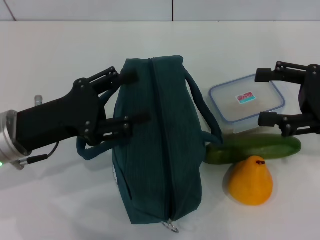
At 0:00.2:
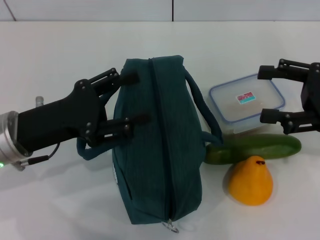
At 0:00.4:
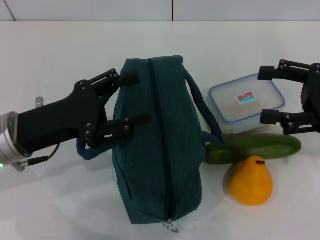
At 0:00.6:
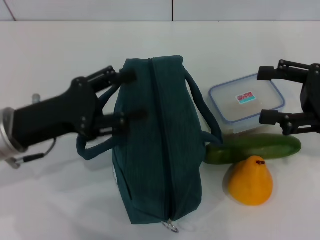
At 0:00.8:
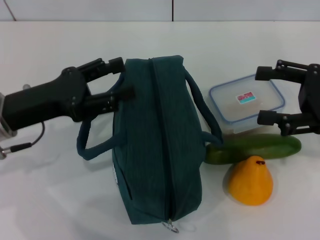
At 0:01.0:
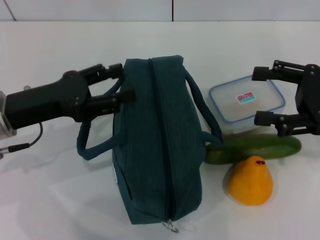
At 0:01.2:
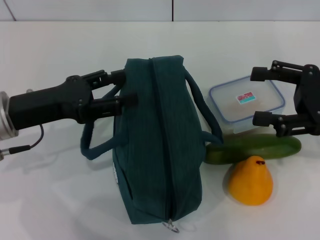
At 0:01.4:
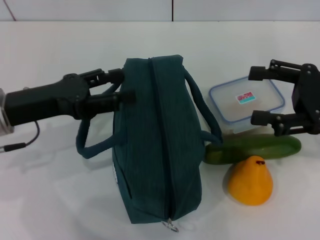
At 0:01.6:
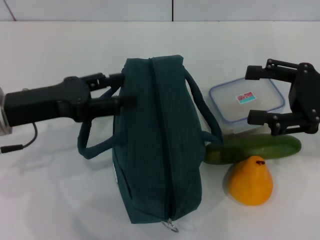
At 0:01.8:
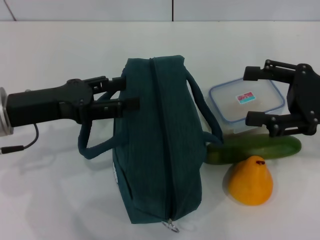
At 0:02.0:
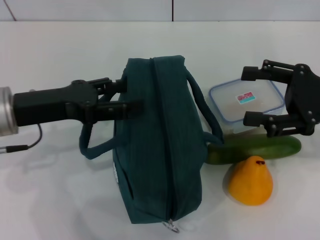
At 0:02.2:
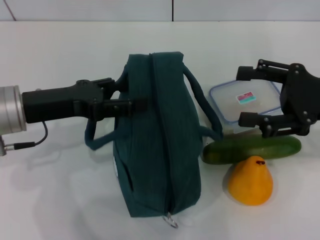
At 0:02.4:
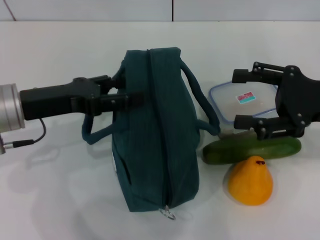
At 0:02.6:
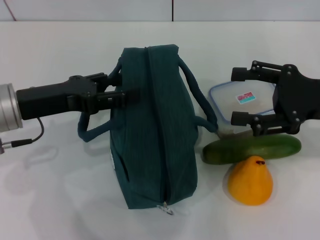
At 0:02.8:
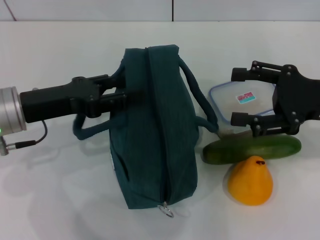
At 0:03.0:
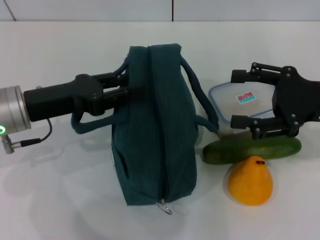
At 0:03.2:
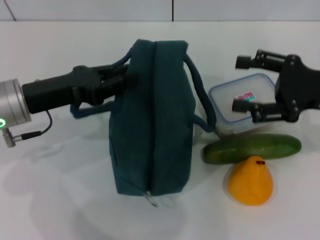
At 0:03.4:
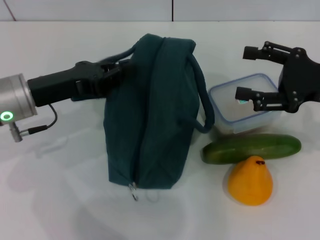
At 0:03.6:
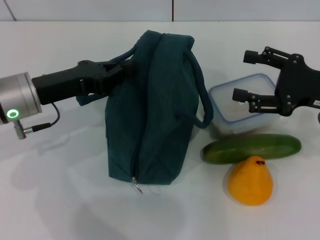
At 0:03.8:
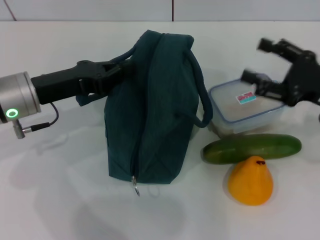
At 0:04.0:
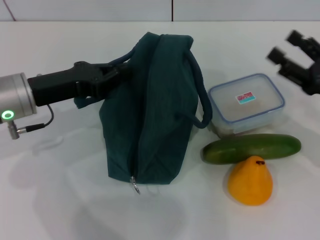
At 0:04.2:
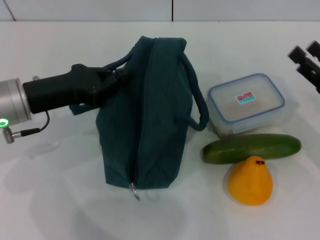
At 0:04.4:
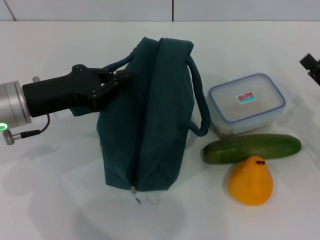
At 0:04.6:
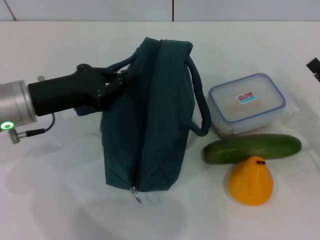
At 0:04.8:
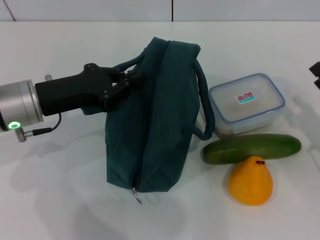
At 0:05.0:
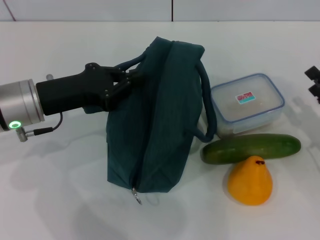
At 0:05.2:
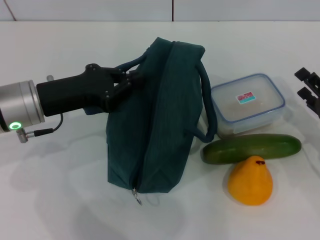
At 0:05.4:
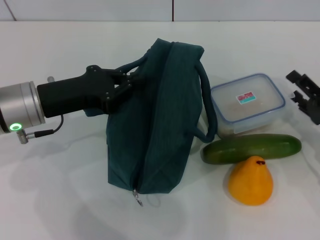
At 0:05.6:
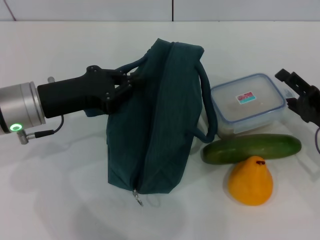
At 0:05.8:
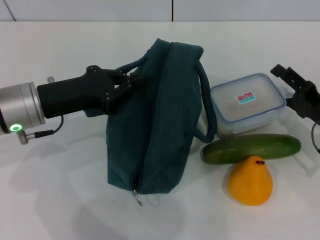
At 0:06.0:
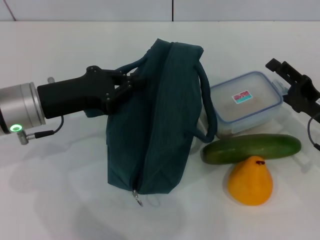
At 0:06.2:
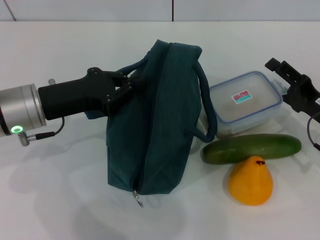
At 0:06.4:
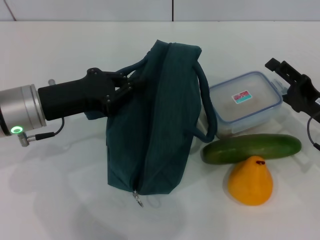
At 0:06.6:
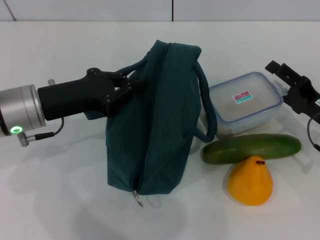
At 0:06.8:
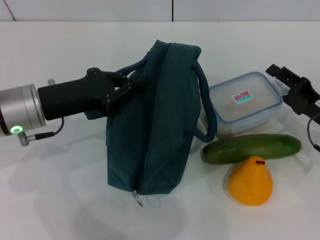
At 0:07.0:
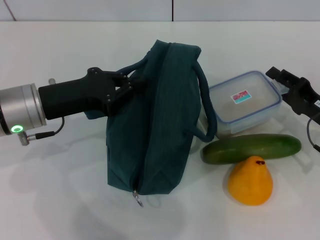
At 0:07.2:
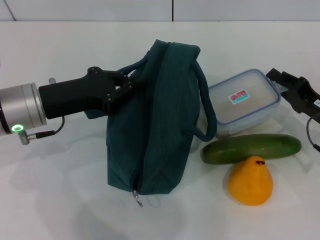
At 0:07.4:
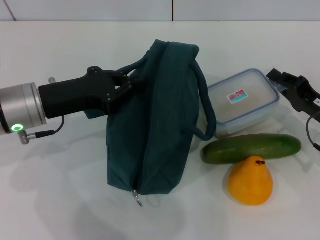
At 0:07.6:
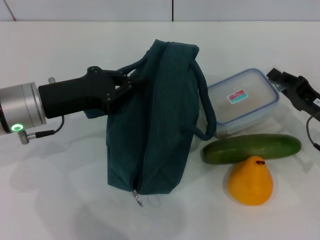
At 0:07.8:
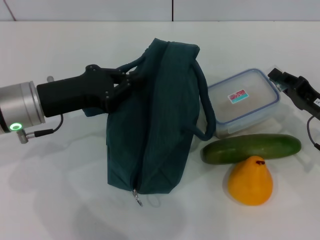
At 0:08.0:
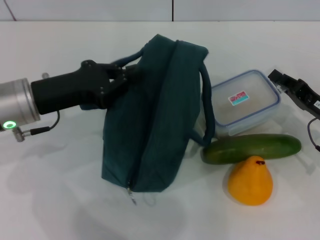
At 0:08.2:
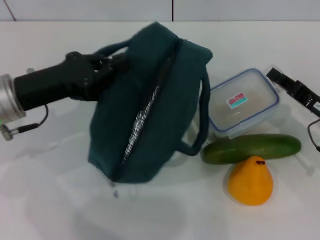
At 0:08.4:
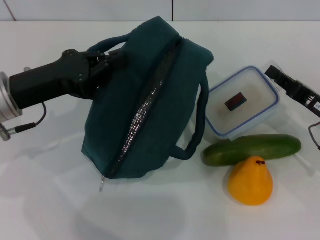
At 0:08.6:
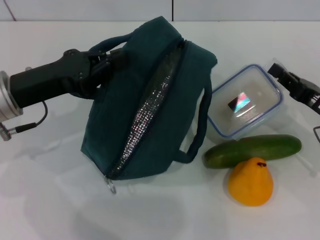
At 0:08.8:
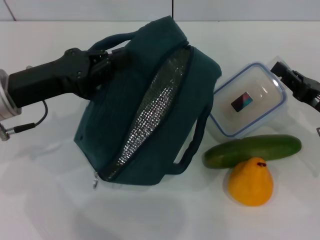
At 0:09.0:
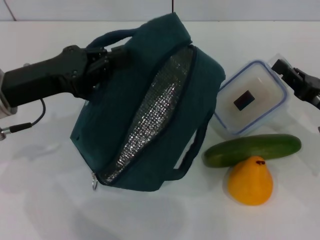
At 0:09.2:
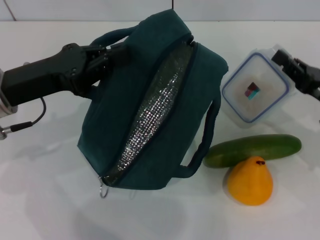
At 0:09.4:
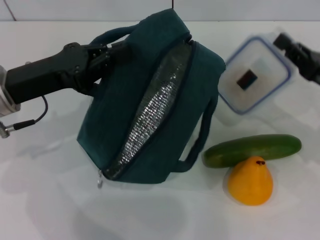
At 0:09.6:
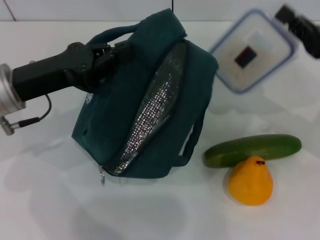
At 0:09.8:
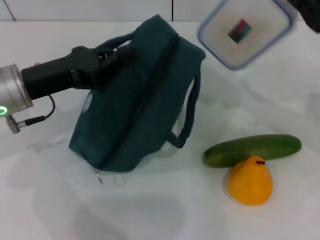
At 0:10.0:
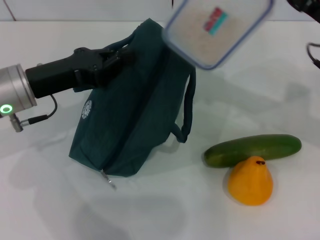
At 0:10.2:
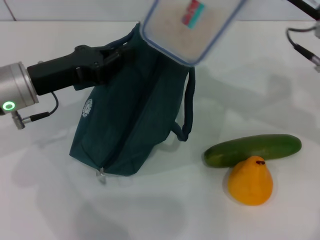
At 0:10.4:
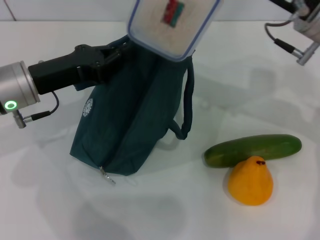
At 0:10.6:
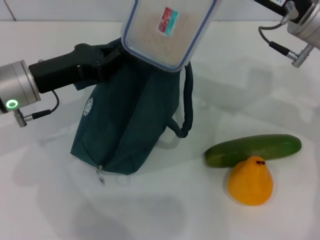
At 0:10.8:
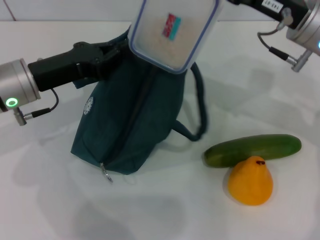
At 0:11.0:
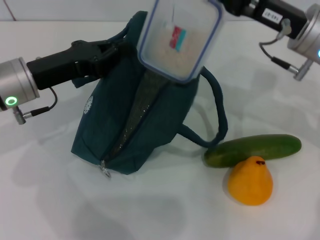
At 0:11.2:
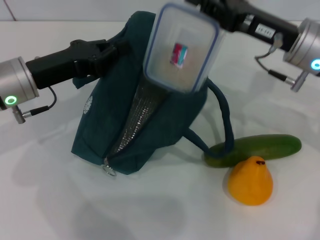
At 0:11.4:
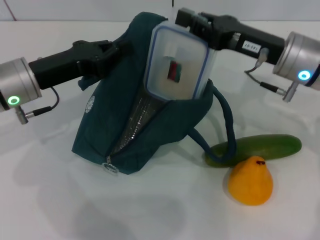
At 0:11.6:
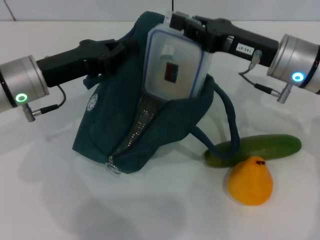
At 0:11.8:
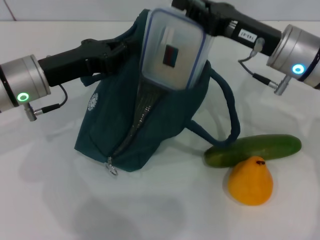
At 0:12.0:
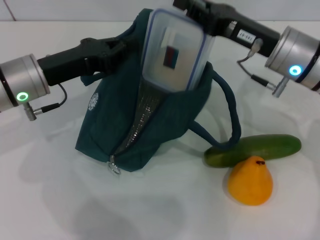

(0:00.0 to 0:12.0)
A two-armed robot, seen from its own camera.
Step, 0:00.0 - 0:03.8: Hold the lunch bag with your left hand.
Step, 0:04.0 - 0:07.4: Pick up the lunch box with your right hand.
0:01.6 - 0:03.0: The grippers make only small movements.
0:03.0 - 0:04.4: The left gripper closes its fingers. Meanwhile the right gripper travels downward by roughly 10 cm.
0:06.0 - 0:07.6: The right gripper closes.
0:09.0 - 0:10.4: The right gripper shifts about 20 cm upward, to the left and forward.
0:10.4 - 0:12.0: The right gripper heads downward, covering approximately 5 cm.

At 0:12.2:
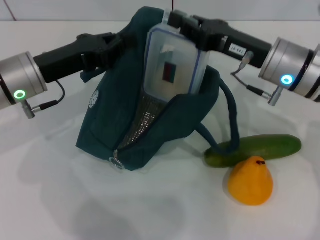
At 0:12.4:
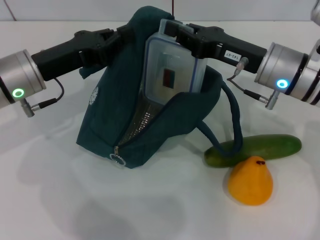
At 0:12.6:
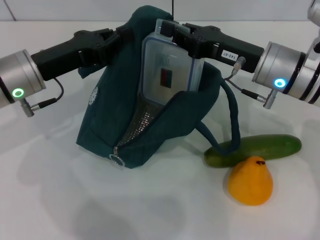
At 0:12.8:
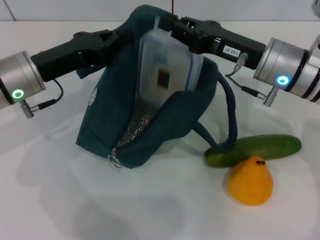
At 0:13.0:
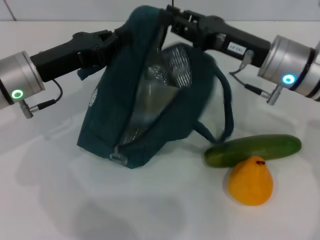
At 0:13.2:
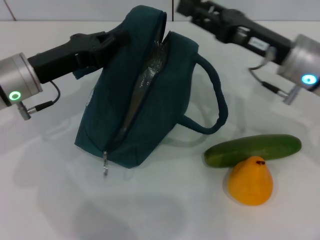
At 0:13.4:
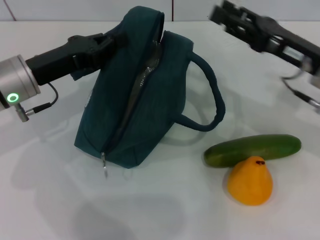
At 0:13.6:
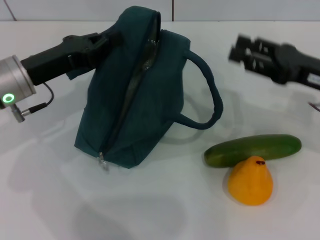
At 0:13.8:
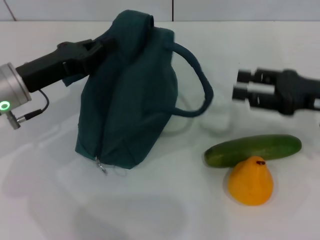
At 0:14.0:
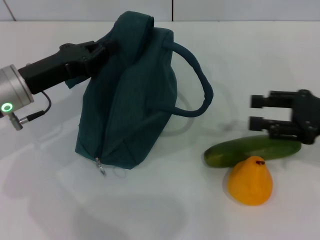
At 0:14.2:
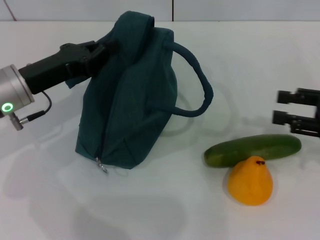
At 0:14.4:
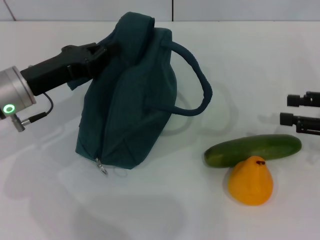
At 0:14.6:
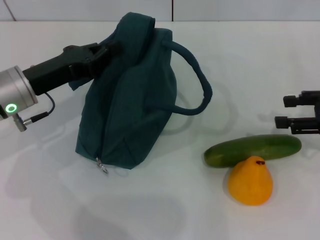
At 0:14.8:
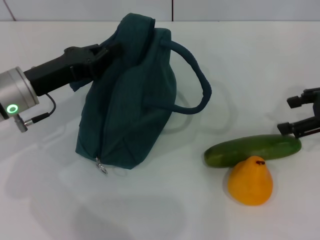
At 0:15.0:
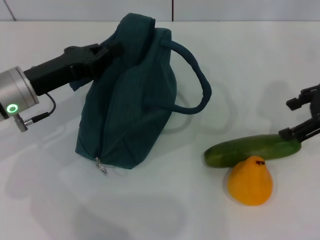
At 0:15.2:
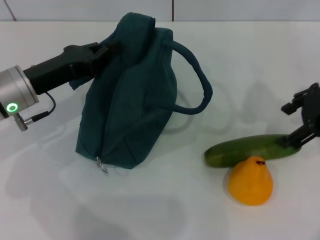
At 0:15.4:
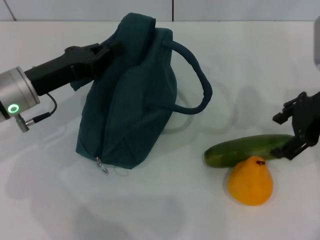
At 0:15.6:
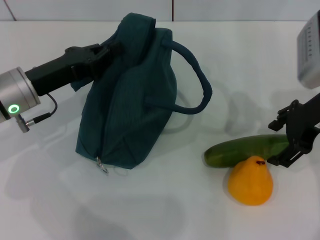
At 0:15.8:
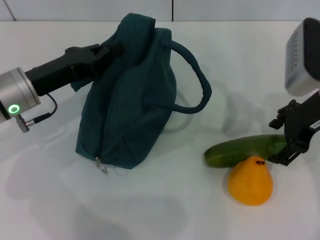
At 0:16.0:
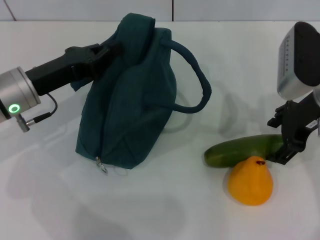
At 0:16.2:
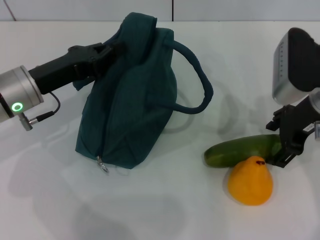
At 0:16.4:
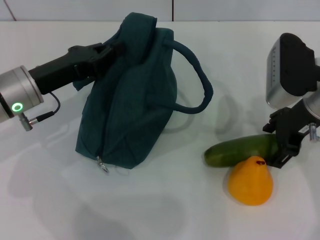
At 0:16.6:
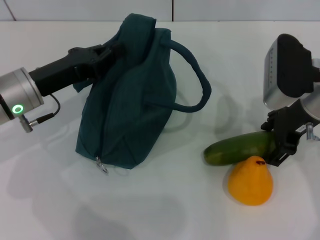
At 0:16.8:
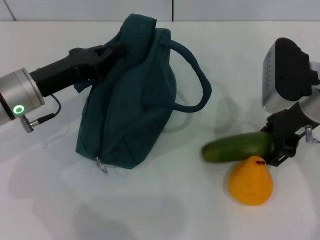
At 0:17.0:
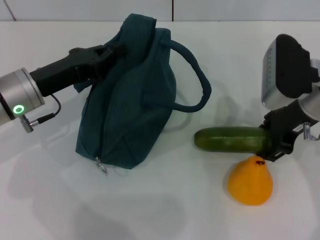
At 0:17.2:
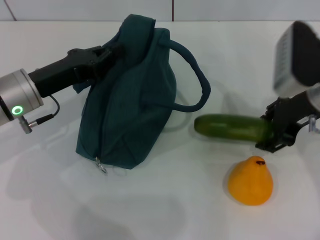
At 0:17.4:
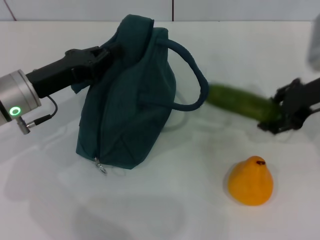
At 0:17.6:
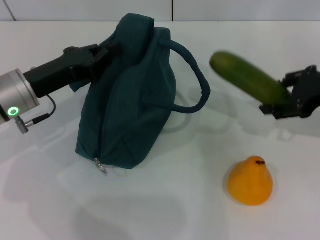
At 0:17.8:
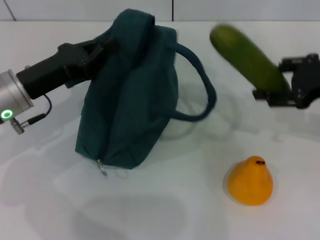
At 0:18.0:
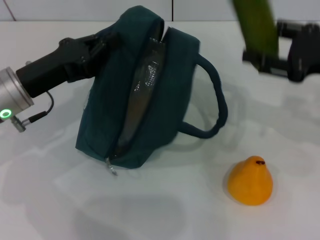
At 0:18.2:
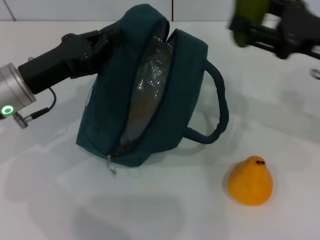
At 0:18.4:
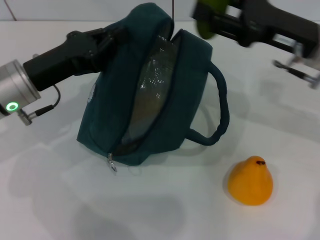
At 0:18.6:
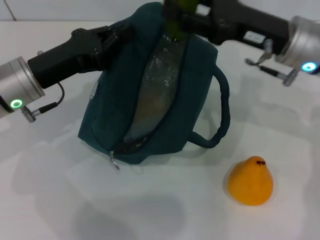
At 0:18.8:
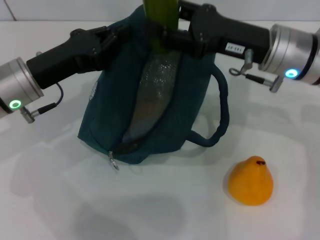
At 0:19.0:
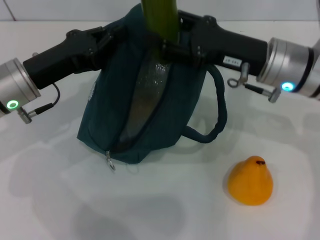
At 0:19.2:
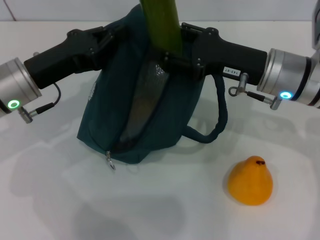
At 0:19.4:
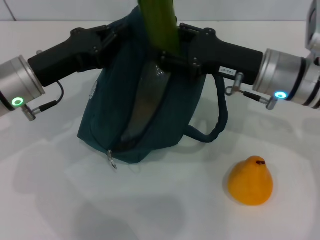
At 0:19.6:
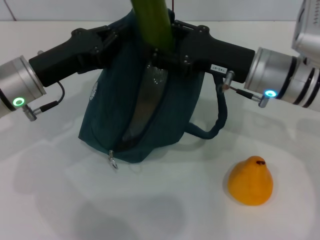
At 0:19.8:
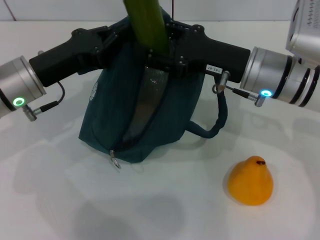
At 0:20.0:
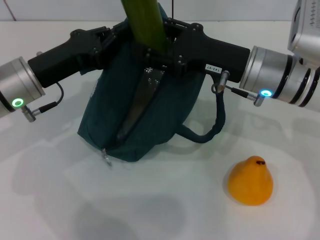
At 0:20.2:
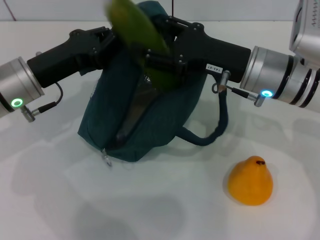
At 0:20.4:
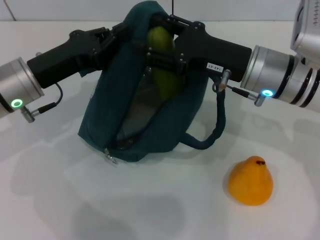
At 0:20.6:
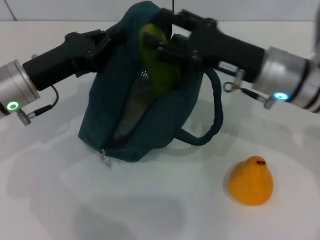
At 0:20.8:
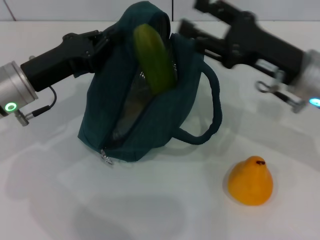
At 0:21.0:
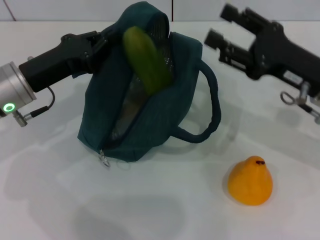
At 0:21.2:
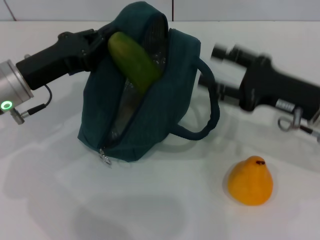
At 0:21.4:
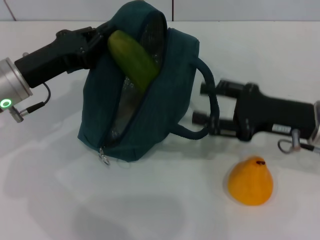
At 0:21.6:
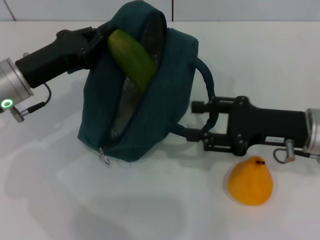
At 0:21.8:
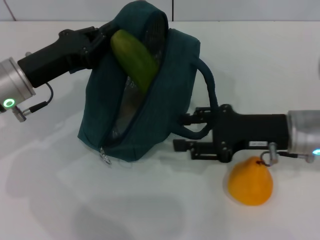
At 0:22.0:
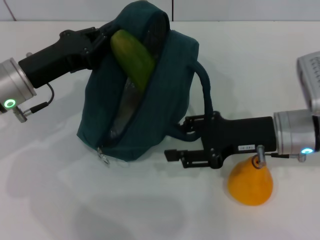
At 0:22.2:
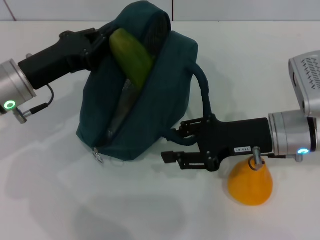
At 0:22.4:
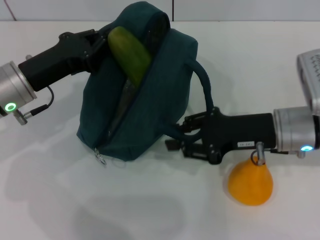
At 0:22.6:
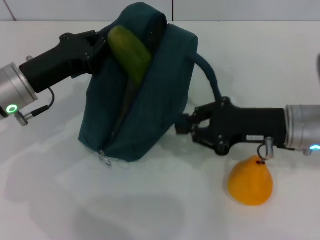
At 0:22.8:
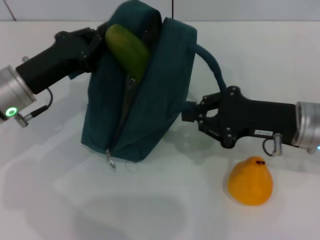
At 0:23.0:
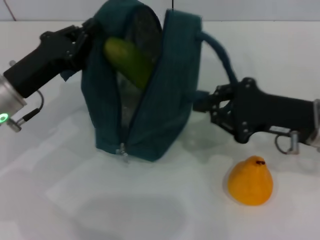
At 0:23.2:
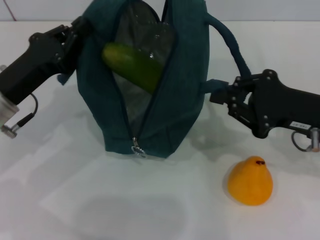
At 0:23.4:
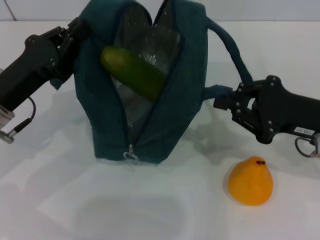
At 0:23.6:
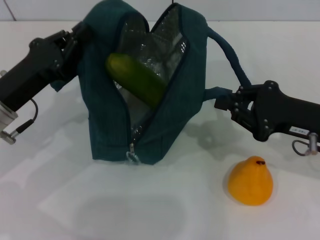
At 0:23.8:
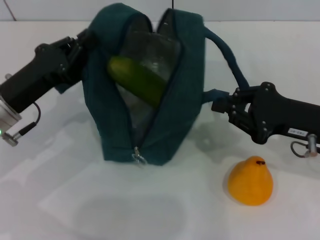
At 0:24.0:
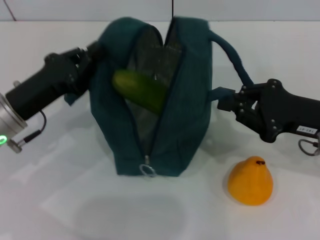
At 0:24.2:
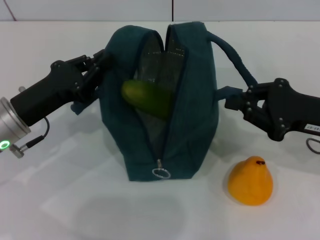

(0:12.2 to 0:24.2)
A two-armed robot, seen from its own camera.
Step, 0:13.2 - 0:16.6: Pick up the cucumber with your right hand.
Step, 0:17.0 - 0:20.6: Put the cucumber into the lunch bag with your right hand.
0:12.2 - 0:13.8: The right gripper moves to the right, about 10 cm, and opens up.
0:13.8 - 0:15.2: The right gripper moves upward, about 5 cm, and reaches roughly 5 cm to the right, then returns.
0:15.2 - 0:16.6: The right gripper heads to the left, covering some 5 cm.
0:16.6 - 0:18.2: The right gripper shifts roughly 5 cm to the right.
0:18.2 - 0:19.8: The right gripper shifts roughly 10 cm to the left.
0:19.8 - 0:21.2: The right gripper travels to the right by about 10 cm.
0:21.2 - 0:22.6: The right gripper closes up.
0:22.6 - 0:24.2: The right gripper is displaced to the right by approximately 5 cm.
